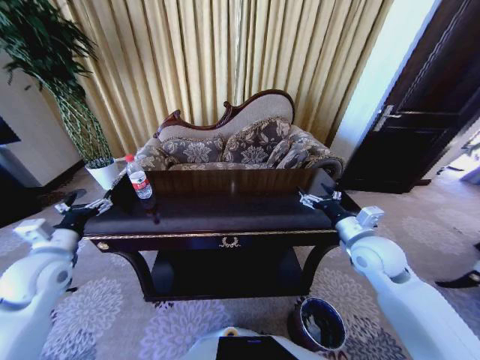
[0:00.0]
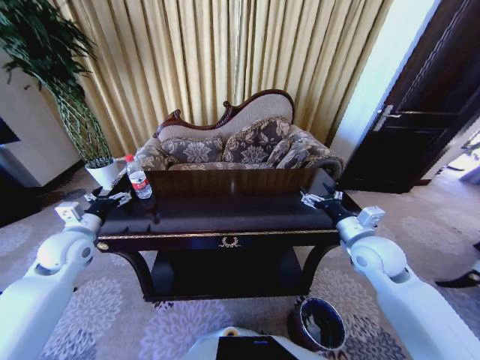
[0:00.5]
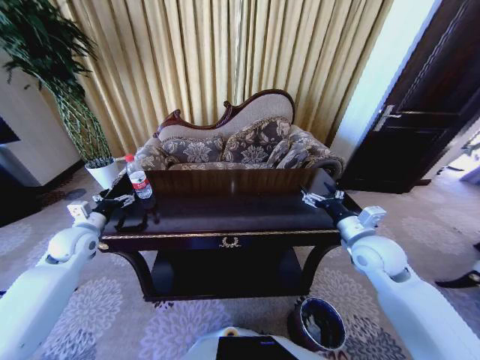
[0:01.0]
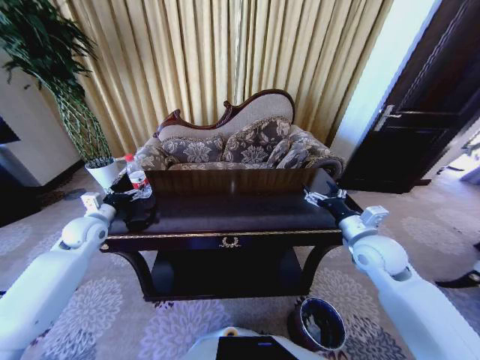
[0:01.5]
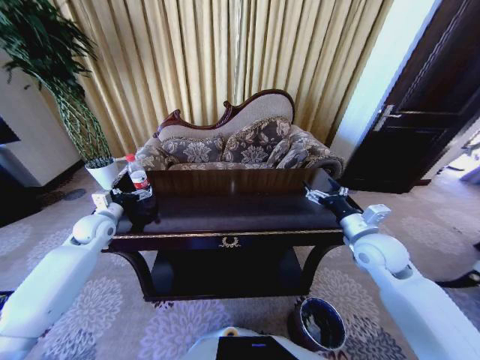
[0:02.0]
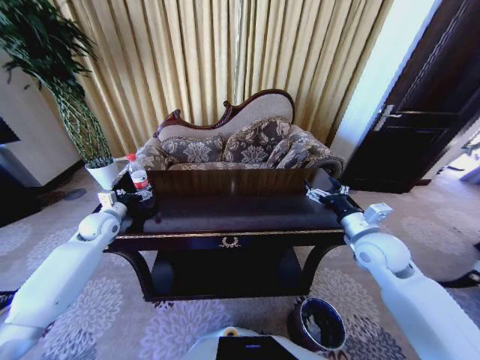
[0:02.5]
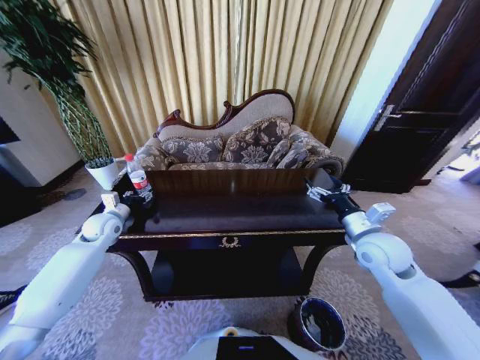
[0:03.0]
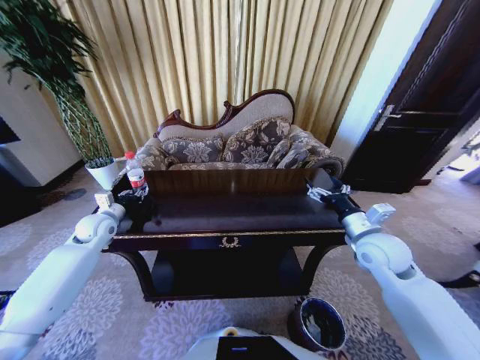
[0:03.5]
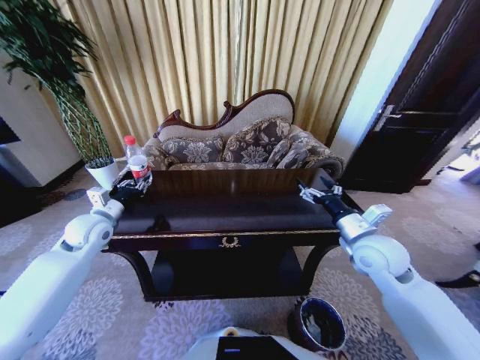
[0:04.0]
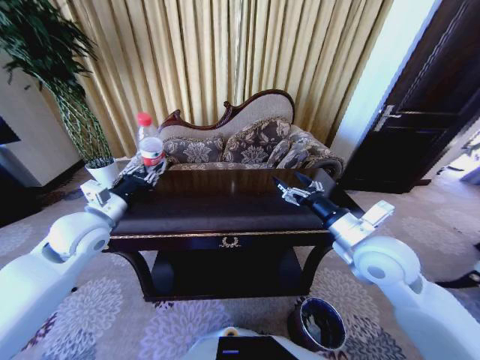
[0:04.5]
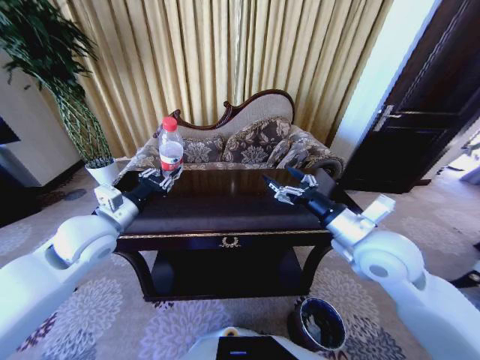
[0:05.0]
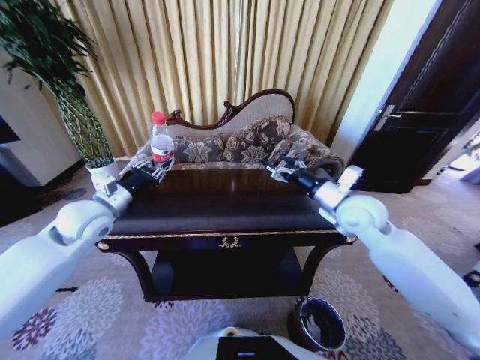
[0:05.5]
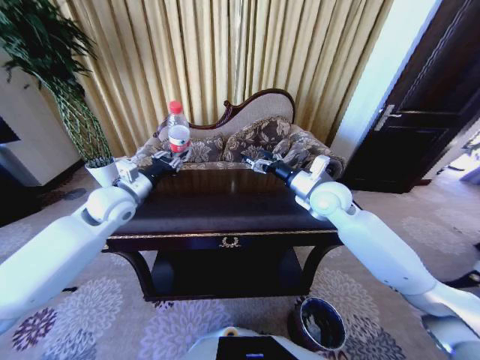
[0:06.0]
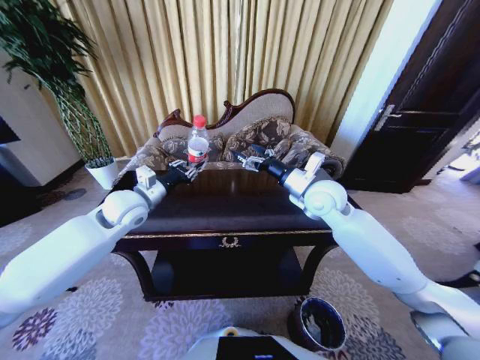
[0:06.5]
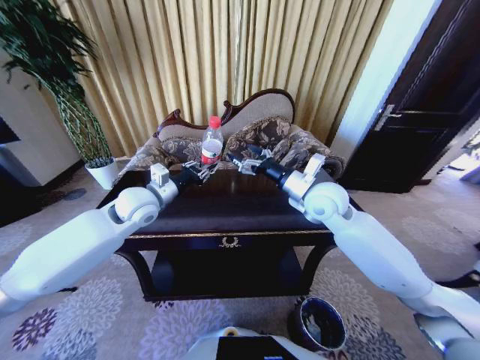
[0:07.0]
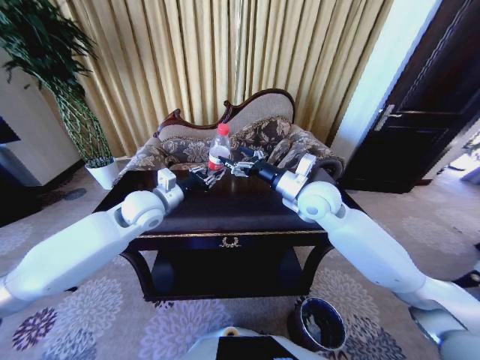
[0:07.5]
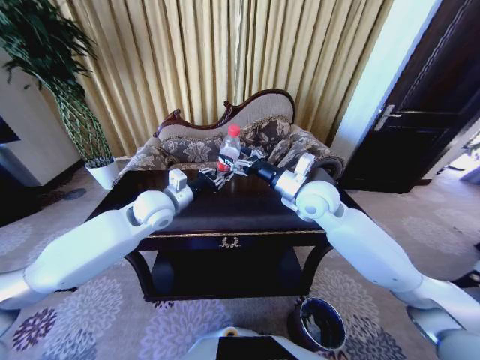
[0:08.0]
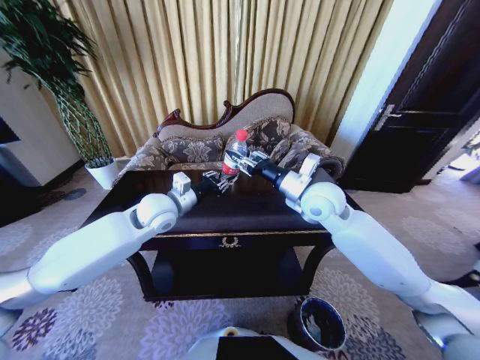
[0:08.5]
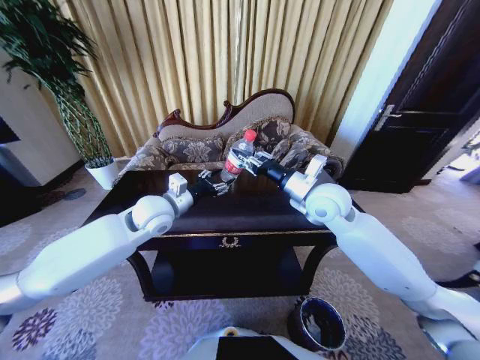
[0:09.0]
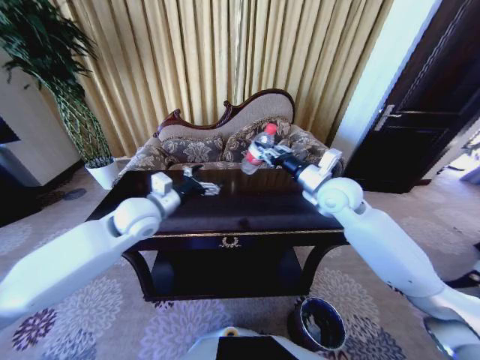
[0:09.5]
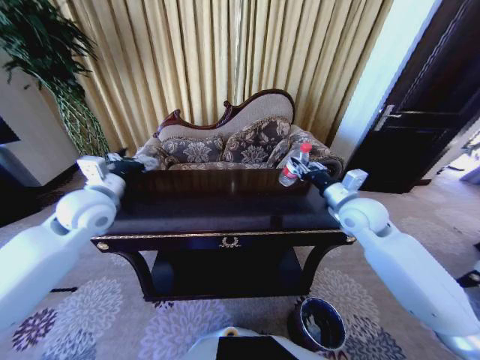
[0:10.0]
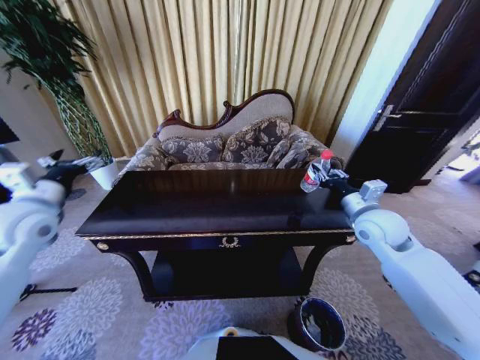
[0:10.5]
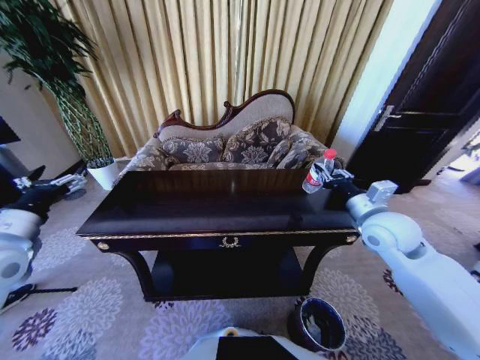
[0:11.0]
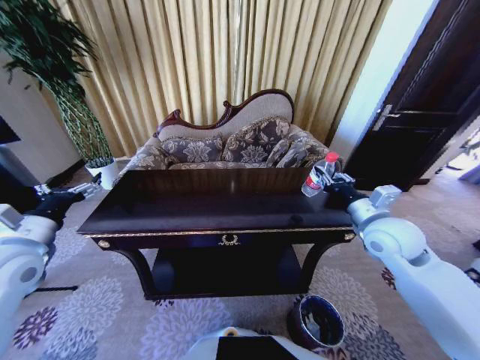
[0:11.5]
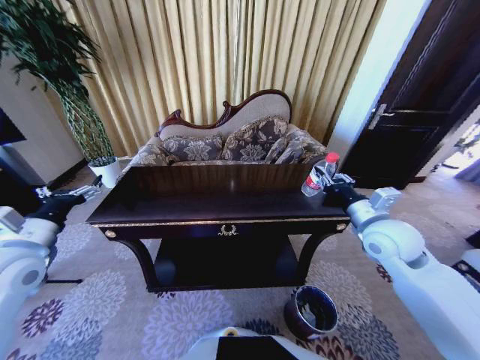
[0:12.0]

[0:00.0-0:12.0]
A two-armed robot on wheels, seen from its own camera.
Task of the whole recording: Move to the front of the table and place the trash on the table into the trash bin.
0:00.0 to 0:02.0: The left gripper moves forward, some 15 cm.
0:02.0 to 0:04.0: The left gripper moves about 5 cm, and closes up.
0:04.0 to 0:06.0: The left gripper shifts roughly 10 cm to the right and upward, and goes backward and returns, about 10 cm each way, while the right gripper is displaced forward, to the left and upward by roughly 15 cm.
0:06.0 to 0:08.0: The left gripper goes roughly 10 cm to the right. Meanwhile the right gripper moves approximately 5 cm.
0:08.0 to 0:10.0: The right gripper travels to the right by roughly 10 cm, and closes its fingers, while the left gripper moves to the left, some 10 cm, and opens up.
0:10.0 to 0:12.0: The left gripper is displaced backward and to the left by roughly 15 cm, while the right gripper shifts roughly 5 cm backward.

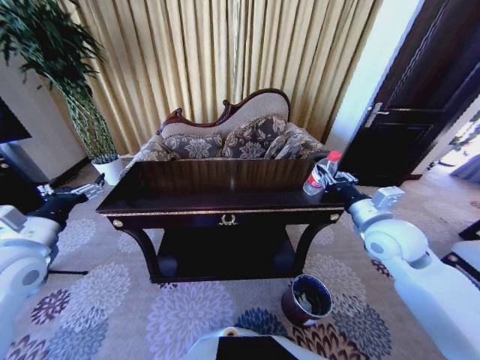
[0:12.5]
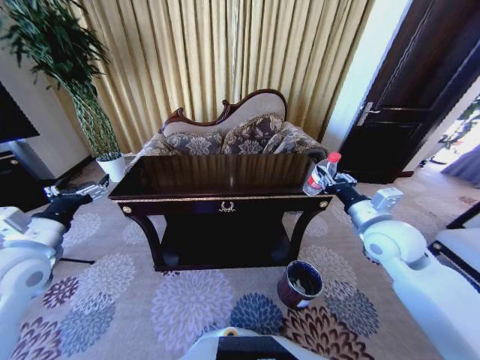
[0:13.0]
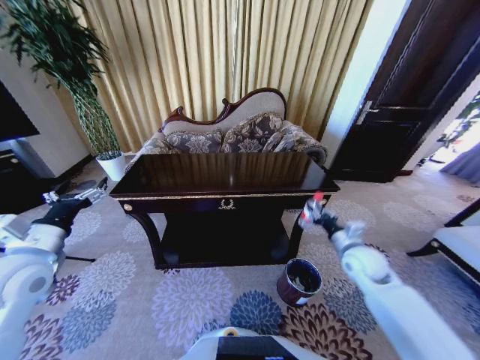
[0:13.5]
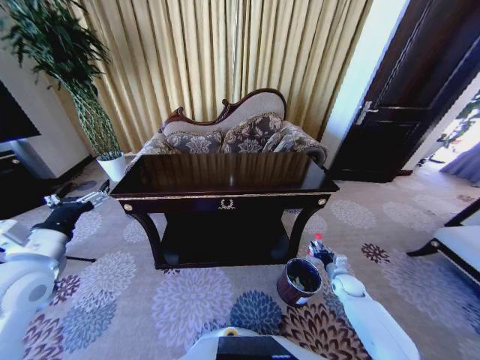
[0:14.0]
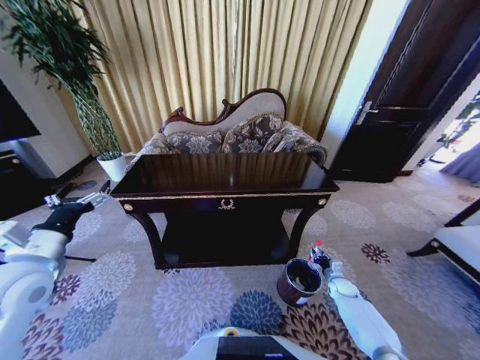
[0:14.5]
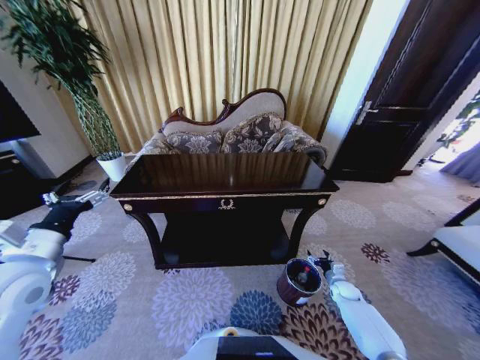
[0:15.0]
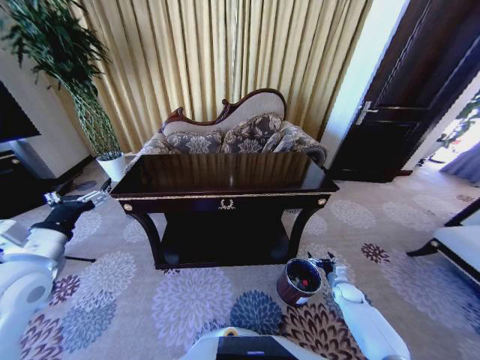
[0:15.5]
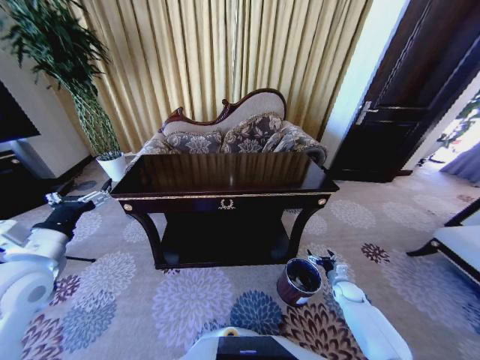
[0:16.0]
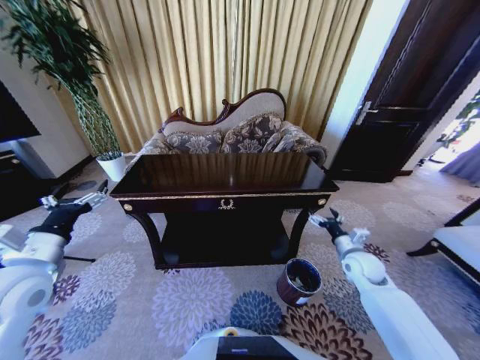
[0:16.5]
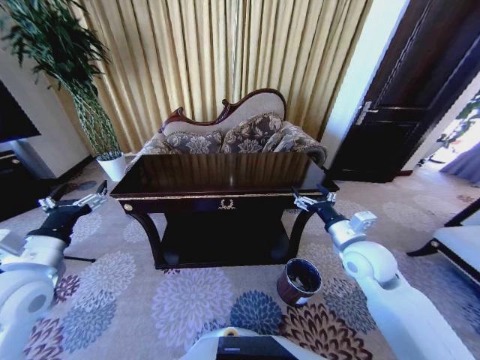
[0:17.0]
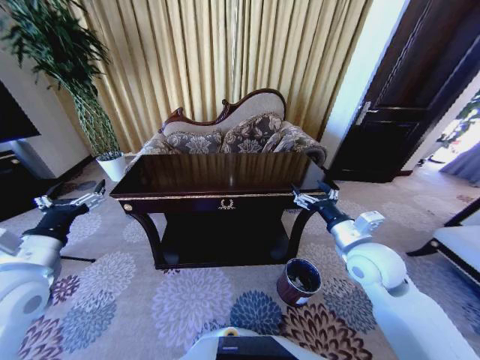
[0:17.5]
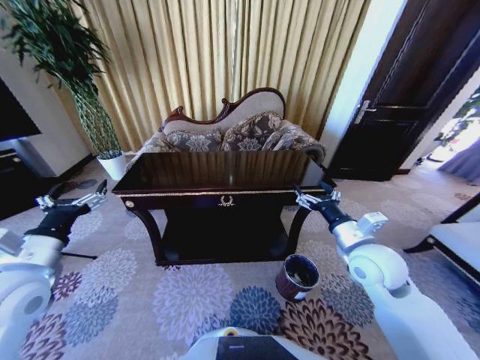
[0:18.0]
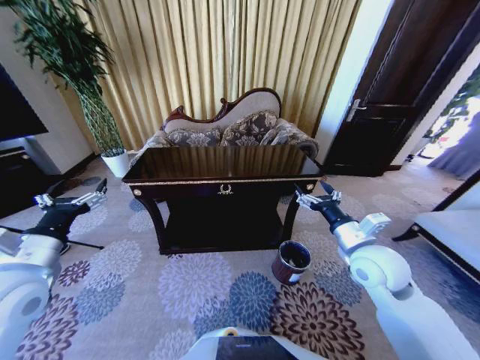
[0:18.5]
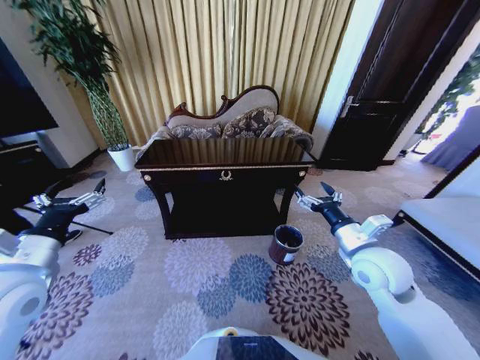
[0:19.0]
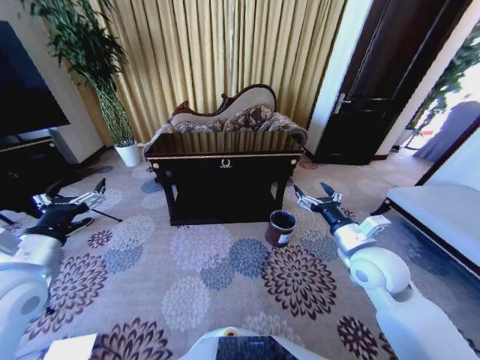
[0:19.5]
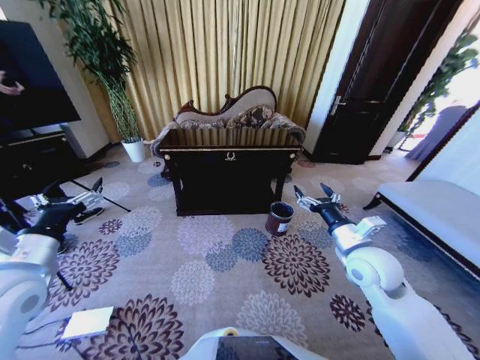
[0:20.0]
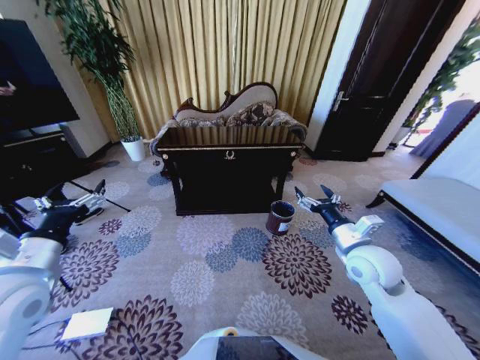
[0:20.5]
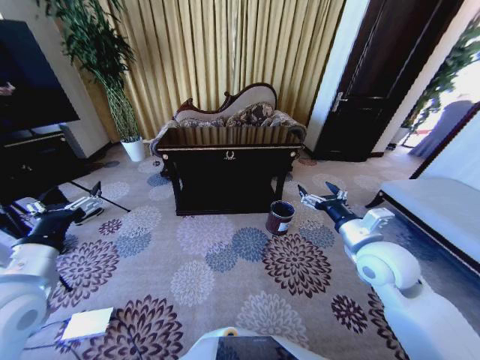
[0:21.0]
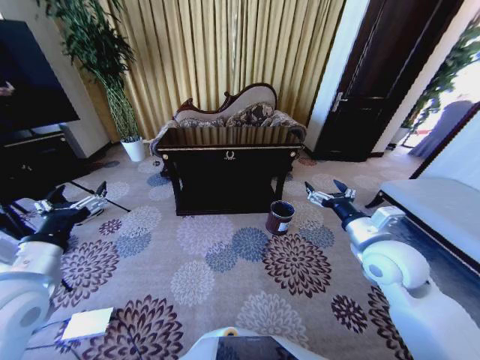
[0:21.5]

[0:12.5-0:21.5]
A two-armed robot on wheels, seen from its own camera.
Task of the whole recording: Move to the front of the table and place the trash on the table into the trash bin.
0:12.5 to 0:14.5: The right gripper goes approximately 40 cm downward.
0:14.5 to 0:17.0: The right gripper heads upward and to the left, covering about 40 cm, and opens its fingers.

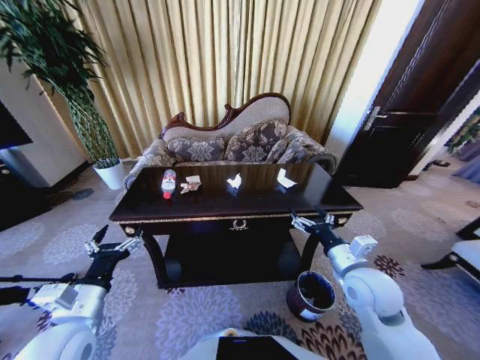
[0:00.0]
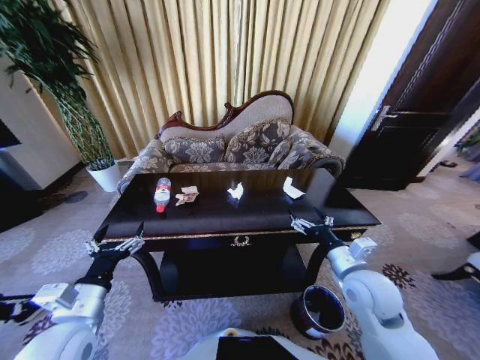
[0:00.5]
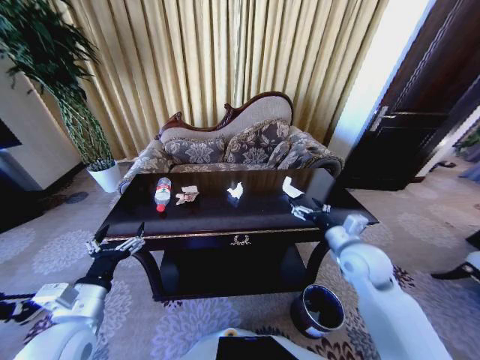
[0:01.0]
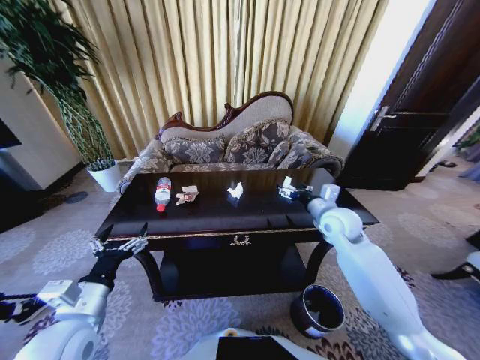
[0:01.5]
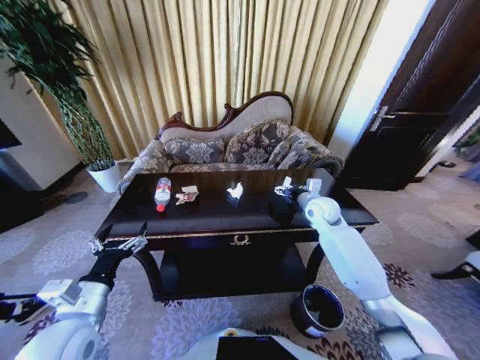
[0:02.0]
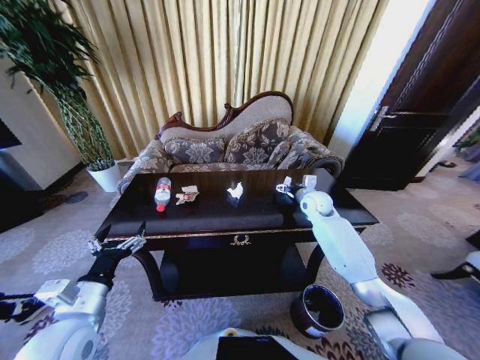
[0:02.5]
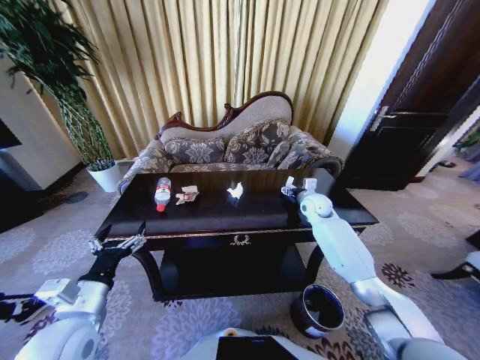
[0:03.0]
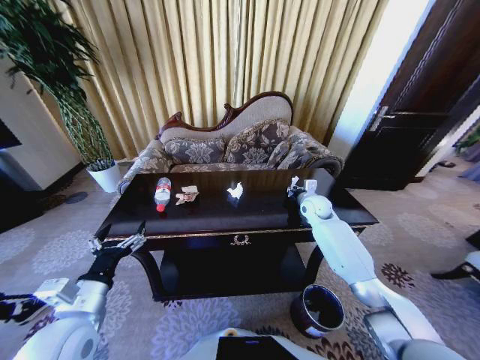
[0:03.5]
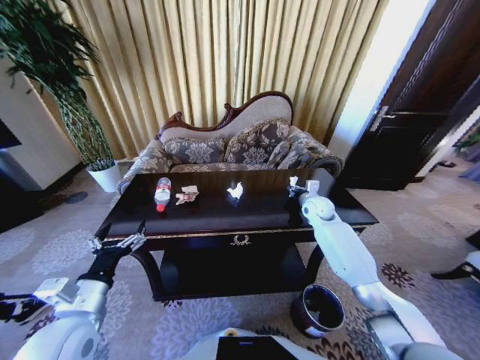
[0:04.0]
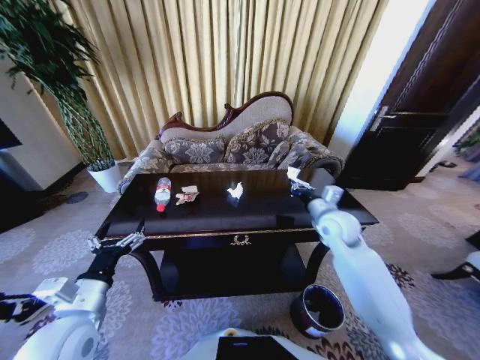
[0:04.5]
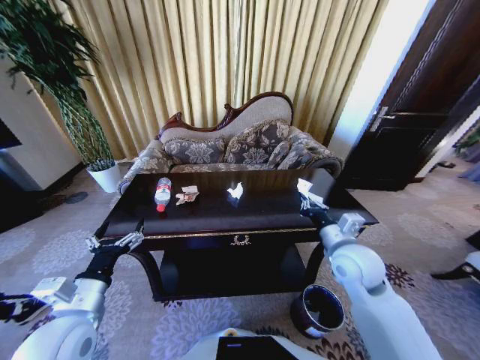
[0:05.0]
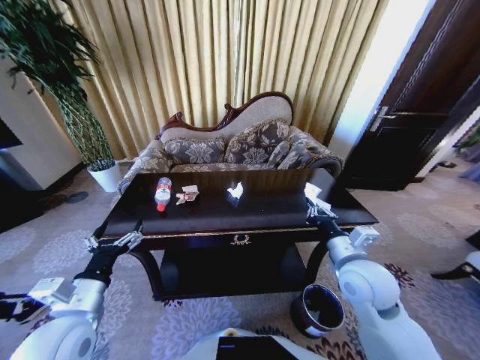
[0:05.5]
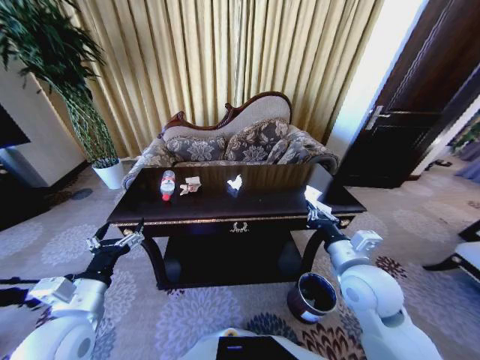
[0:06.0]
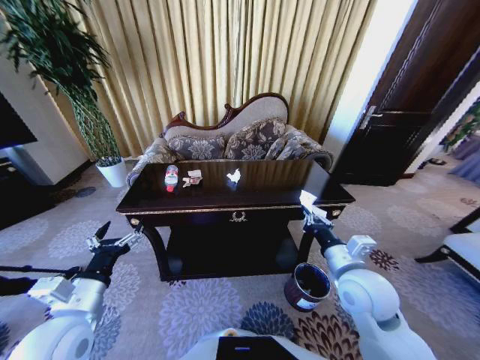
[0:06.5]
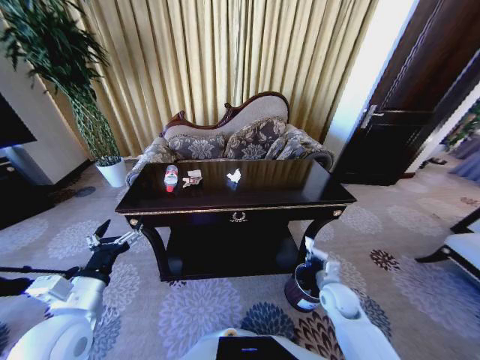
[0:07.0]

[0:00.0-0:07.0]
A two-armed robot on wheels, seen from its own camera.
Task of the whole recording: Move to the front of the table and place the trash on the table into the trash bin.
0:00.0 to 0:02.0: The right gripper is displaced forward by approximately 25 cm.
0:02.0 to 0:03.5: The right gripper shifts by about 5 cm, and closes.
0:03.5 to 0:05.0: The right gripper goes approximately 25 cm backward.
0:05.0 to 0:07.0: The right gripper moves downward, some 25 cm.
